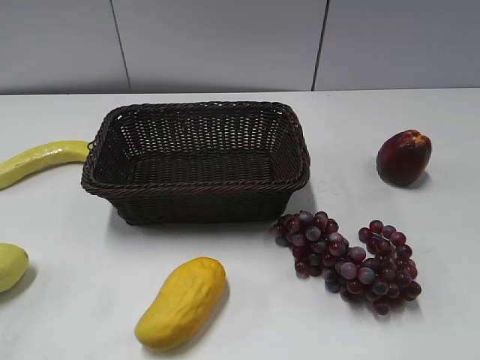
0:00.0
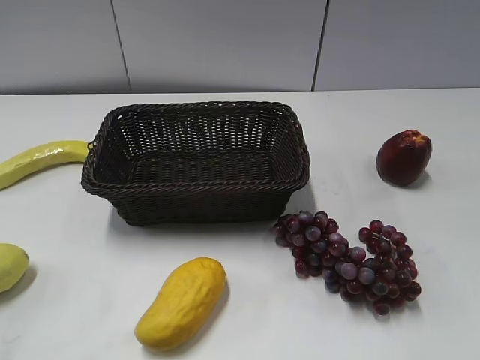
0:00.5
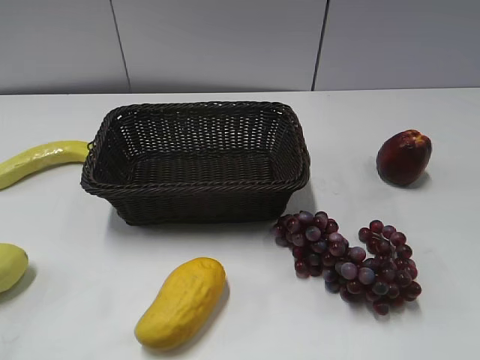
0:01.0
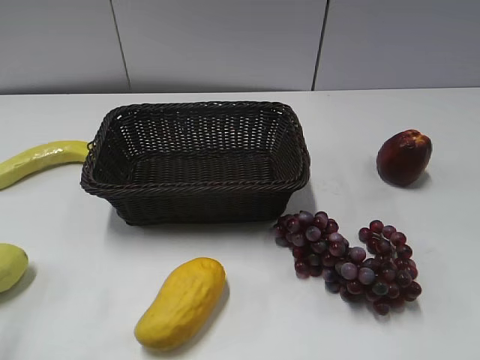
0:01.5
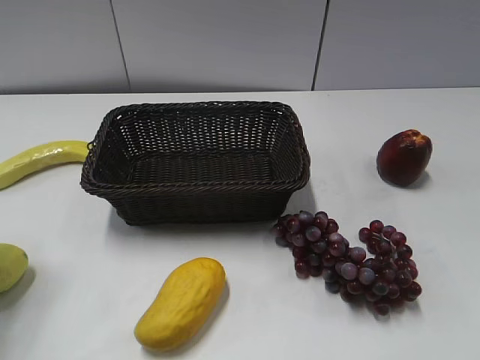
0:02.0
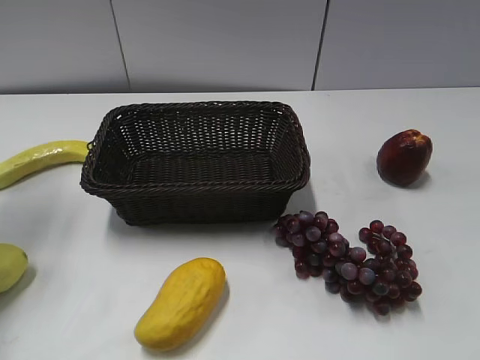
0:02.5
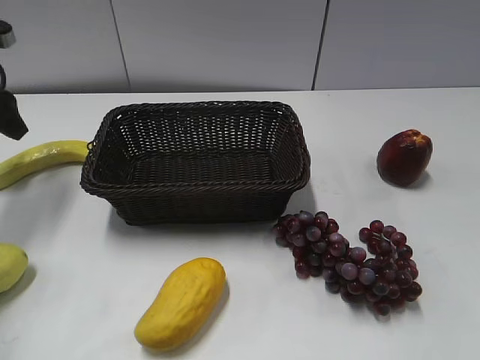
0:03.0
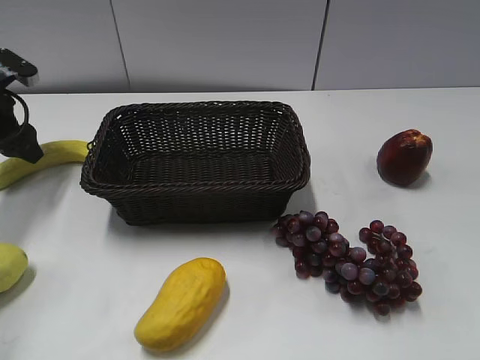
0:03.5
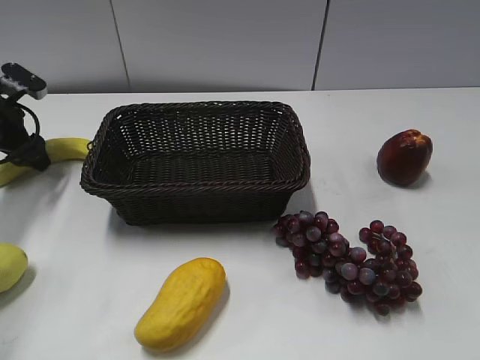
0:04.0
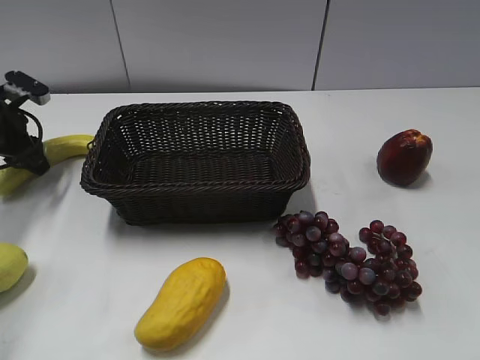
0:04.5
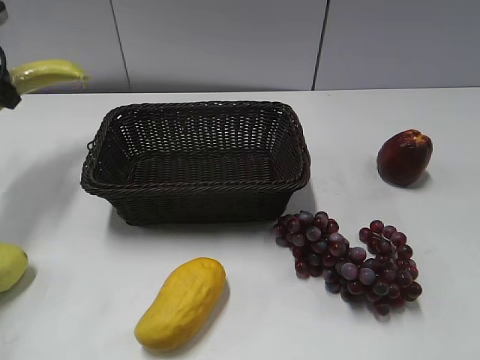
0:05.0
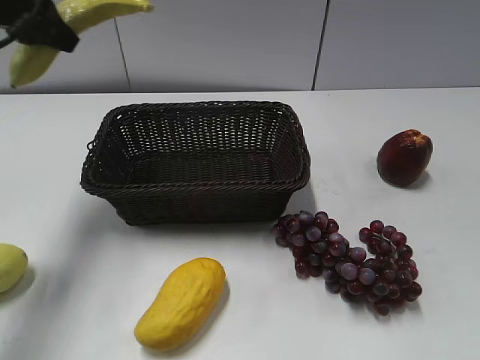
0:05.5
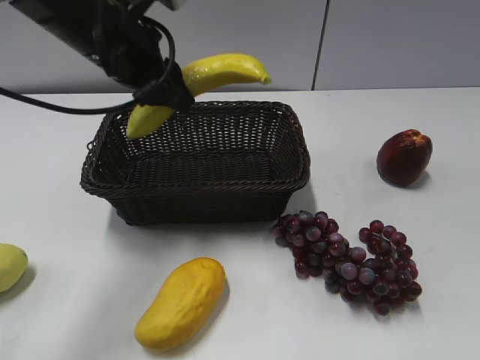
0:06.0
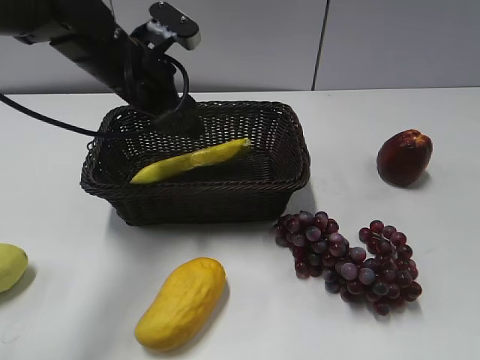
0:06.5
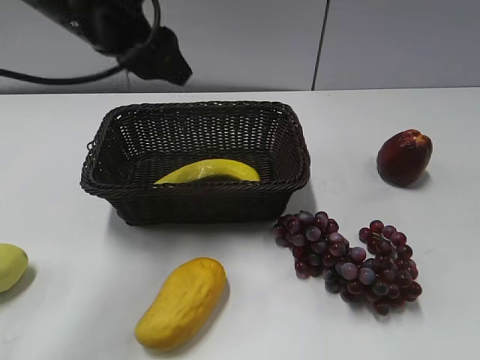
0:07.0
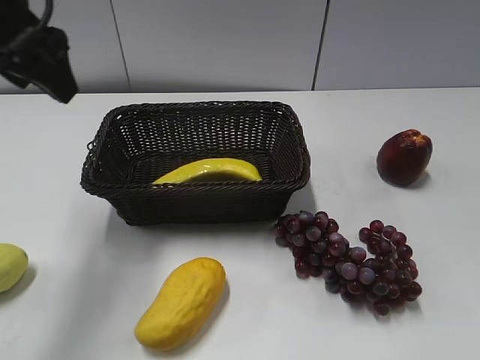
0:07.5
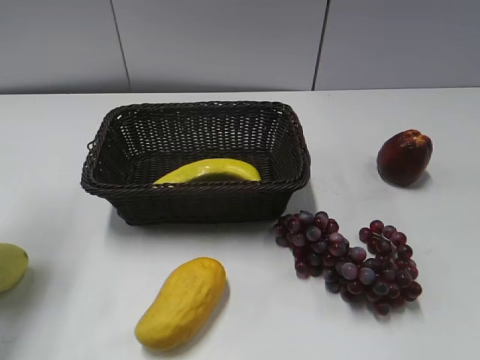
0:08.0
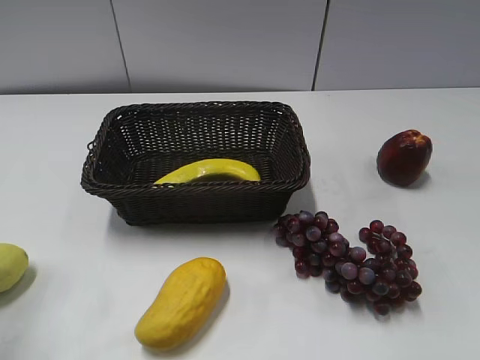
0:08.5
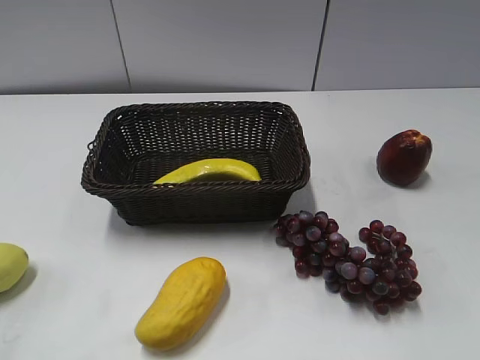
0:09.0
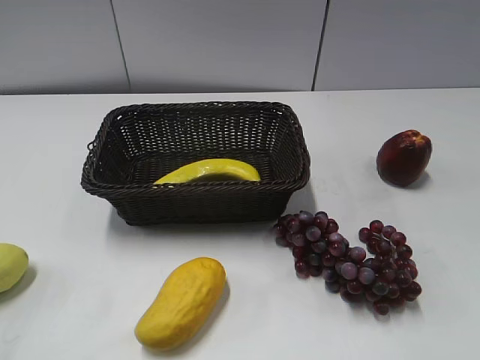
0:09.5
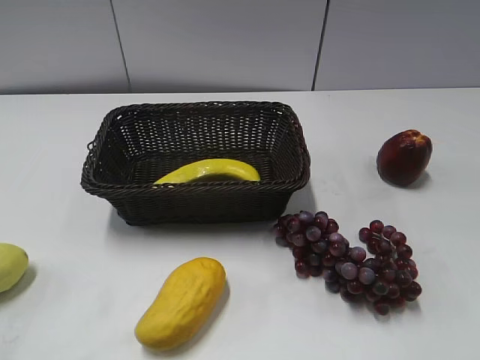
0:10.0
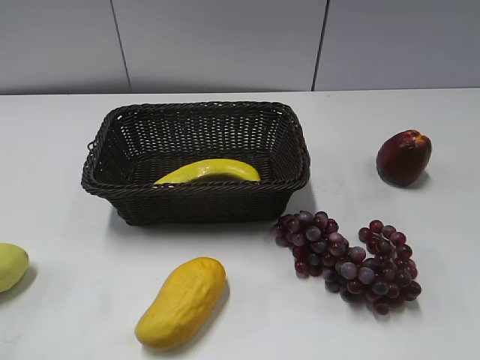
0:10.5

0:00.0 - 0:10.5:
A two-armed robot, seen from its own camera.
Step, 0:03.0 - 0:04.0: Grasp the banana with left gripper.
Step, 0:04.5 - 0:06.0: Place the banana in the basket with left gripper.
0:02.0 - 0:04.0: The left gripper is displaced forward and downward by roughly 25 cm, and opens its fingers.
0:04.0 - 0:06.5: The left gripper shifts roughly 25 cm to the right and upward, and closes, then opens again.
0:06.5 - 0:08.5: The left gripper is displaced backward, to the left and upward by some 30 cm, and closes its fingers.
